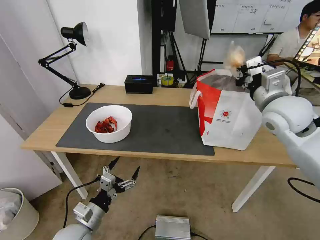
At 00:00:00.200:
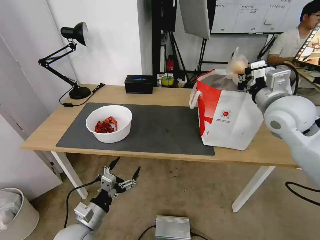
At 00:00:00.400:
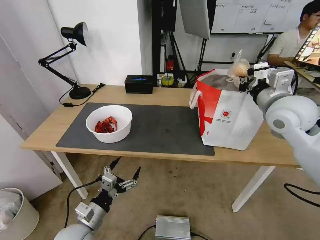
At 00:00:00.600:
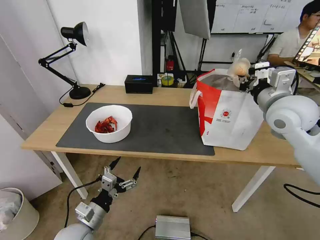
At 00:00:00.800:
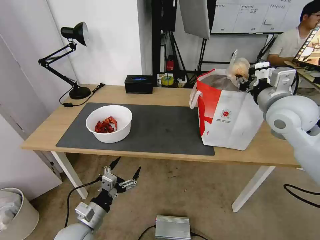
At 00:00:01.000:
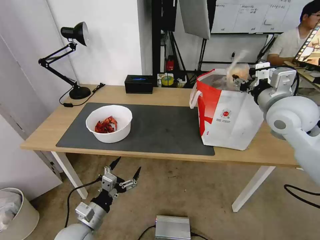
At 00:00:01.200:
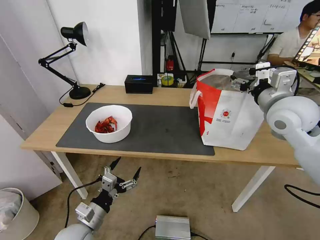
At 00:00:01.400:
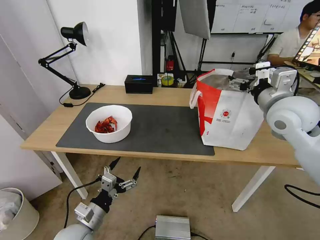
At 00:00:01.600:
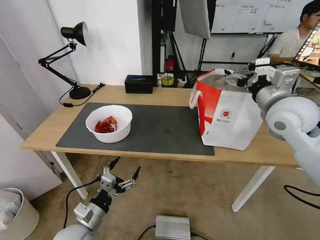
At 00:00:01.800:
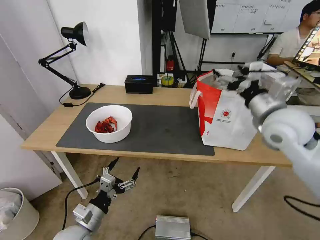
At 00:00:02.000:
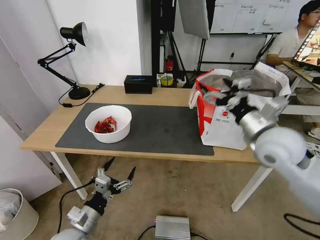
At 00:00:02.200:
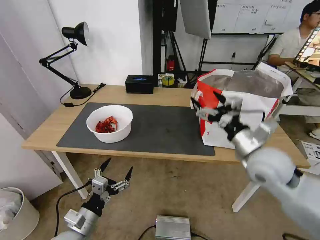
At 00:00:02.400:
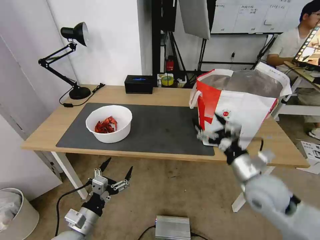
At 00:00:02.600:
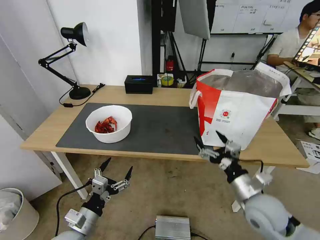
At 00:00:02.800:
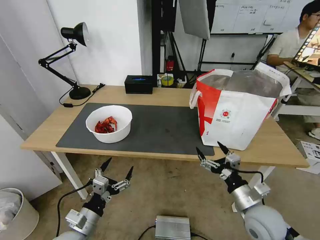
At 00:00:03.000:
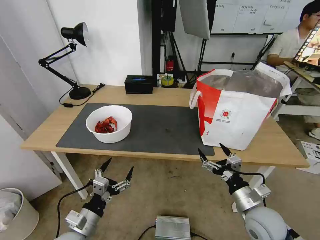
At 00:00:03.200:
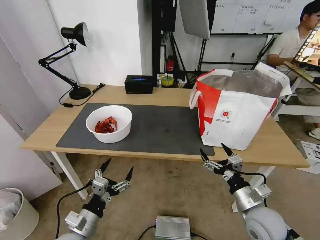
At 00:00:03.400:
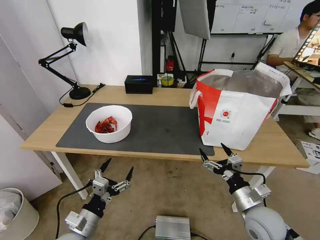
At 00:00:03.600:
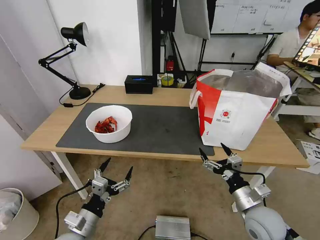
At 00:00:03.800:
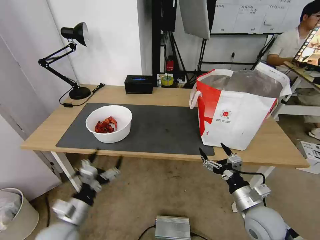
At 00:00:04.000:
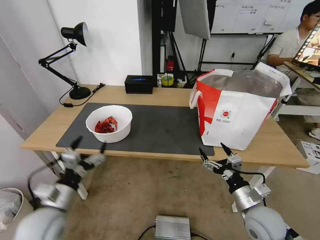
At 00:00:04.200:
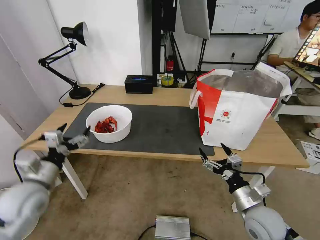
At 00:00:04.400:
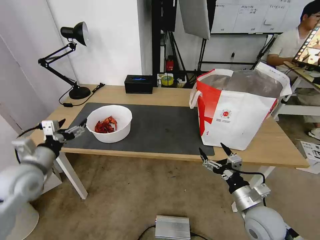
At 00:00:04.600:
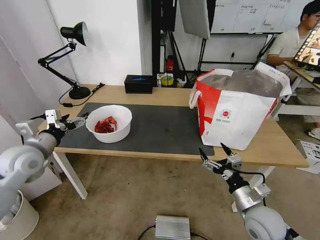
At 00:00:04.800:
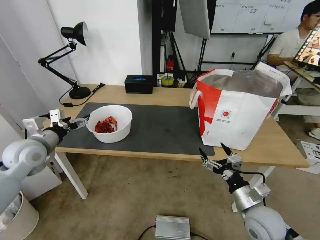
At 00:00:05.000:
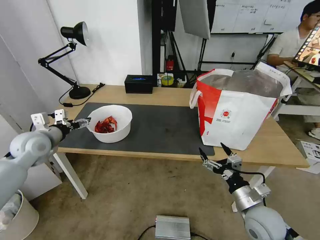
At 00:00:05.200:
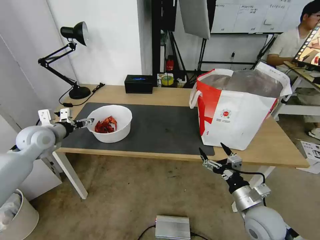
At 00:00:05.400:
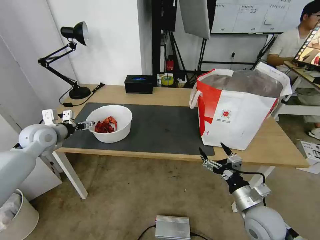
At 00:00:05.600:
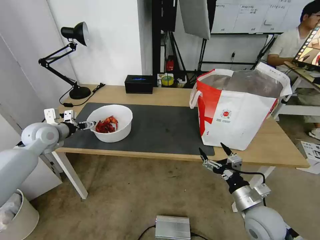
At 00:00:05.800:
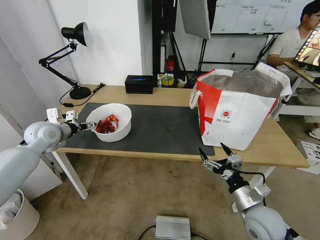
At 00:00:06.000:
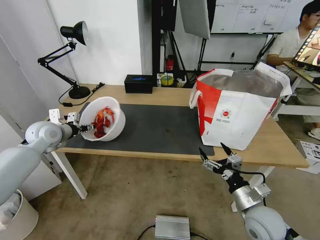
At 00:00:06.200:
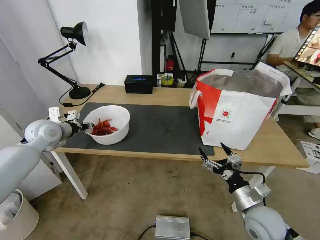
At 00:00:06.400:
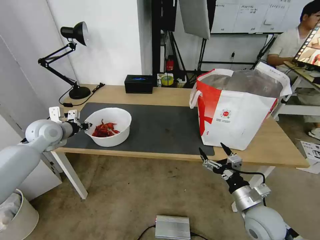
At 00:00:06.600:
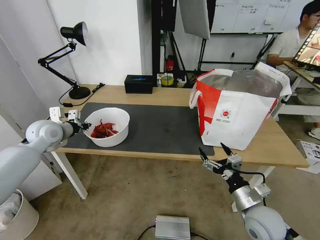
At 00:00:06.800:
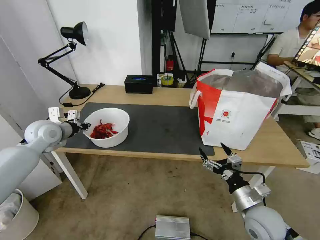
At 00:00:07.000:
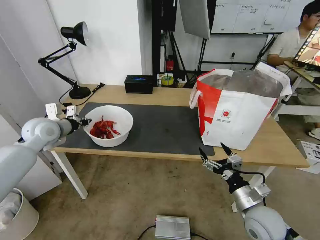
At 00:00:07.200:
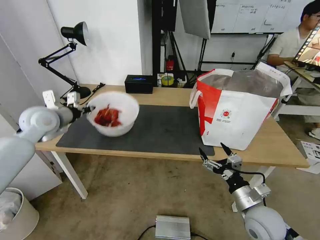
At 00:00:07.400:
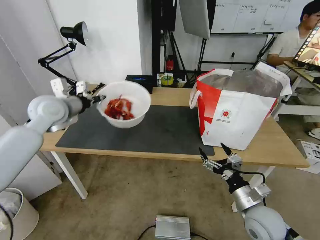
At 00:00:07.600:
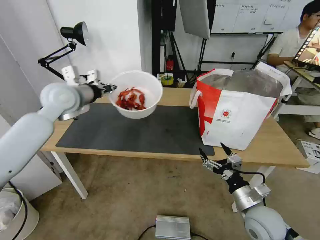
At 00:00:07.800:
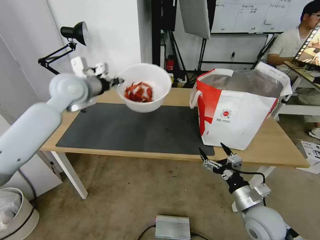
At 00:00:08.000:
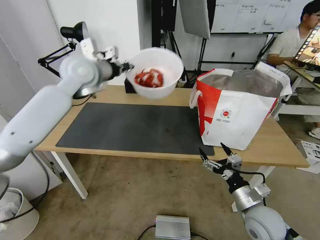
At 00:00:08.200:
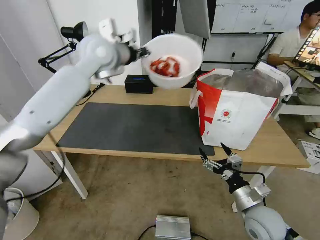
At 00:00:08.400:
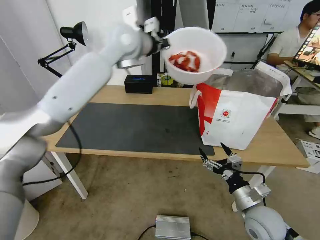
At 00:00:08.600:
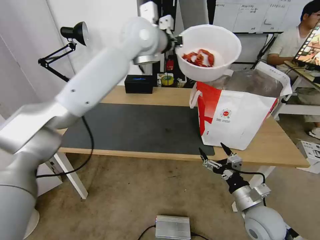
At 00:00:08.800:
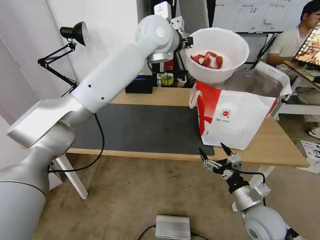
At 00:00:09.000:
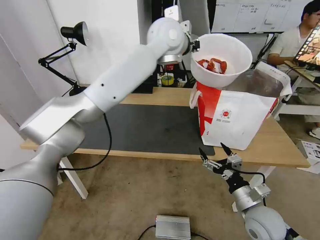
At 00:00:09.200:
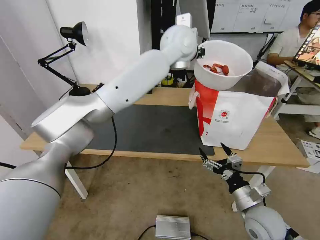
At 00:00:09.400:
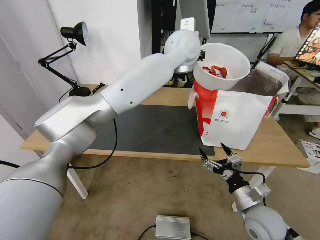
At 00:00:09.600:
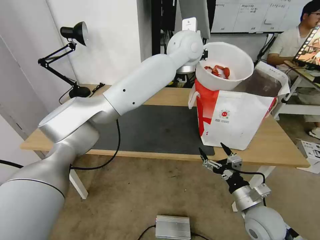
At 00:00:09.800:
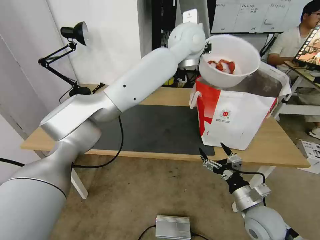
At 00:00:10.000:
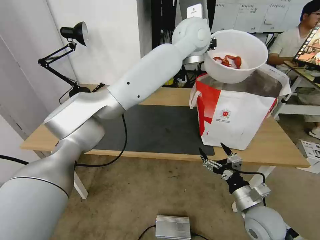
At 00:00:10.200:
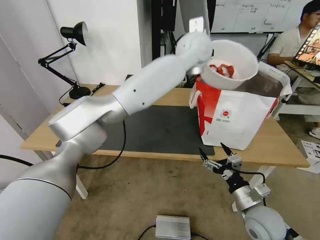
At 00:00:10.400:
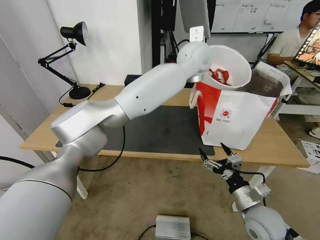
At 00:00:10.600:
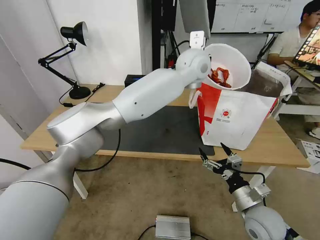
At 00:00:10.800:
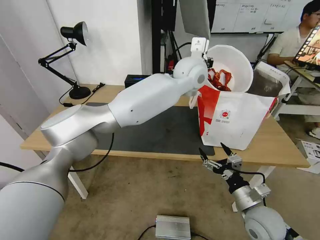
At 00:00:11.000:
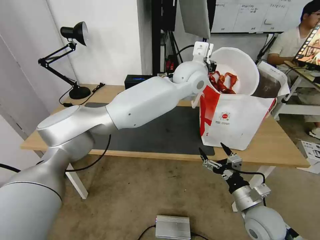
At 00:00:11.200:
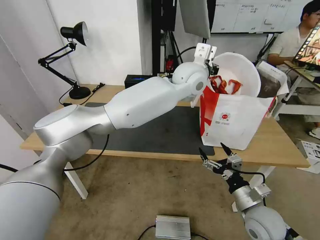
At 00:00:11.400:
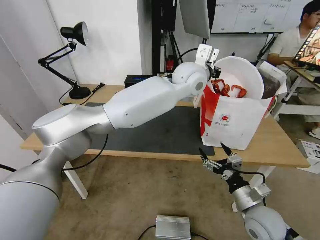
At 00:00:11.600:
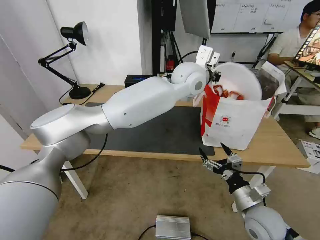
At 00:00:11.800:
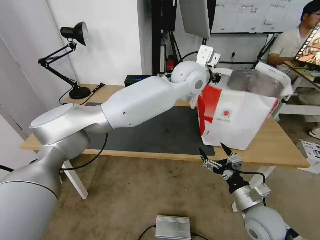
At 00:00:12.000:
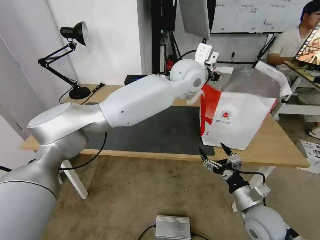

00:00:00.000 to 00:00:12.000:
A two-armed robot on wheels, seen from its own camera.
Task of the whole recording: Pick up the trash from the table and place it into the takeout bag.
00:00:00.000 to 00:00:01.600: The right gripper opens its fingers.
00:00:01.600 to 00:00:03.000: The right gripper heads downward and backward, covering approximately 30 cm.
00:00:03.000 to 00:00:04.400: The left gripper goes approximately 20 cm upward, forward and to the left.
00:00:04.400 to 00:00:06.000: The left gripper heads forward, covering some 15 cm, and closes its fingers.
00:00:06.000 to 00:00:07.600: The left gripper heads upward and to the right, covering approximately 15 cm, and closes its fingers.
00:00:07.600 to 00:00:09.000: The left gripper shifts approximately 35 cm to the right and upward.
00:00:09.000 to 00:00:10.400: The left gripper is displaced to the right and downward by roughly 10 cm.
00:00:10.400 to 00:00:12.000: The left gripper opens its fingers.

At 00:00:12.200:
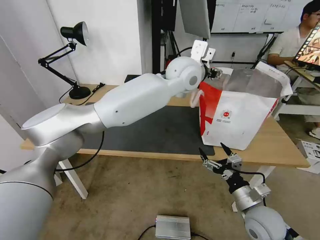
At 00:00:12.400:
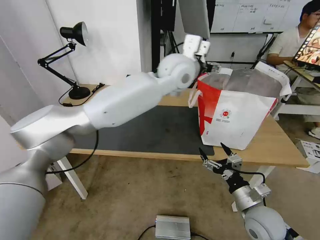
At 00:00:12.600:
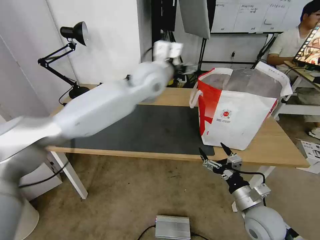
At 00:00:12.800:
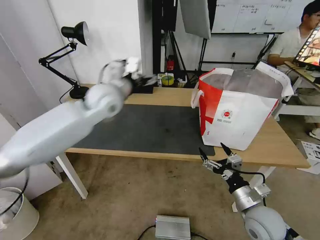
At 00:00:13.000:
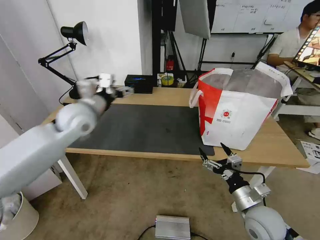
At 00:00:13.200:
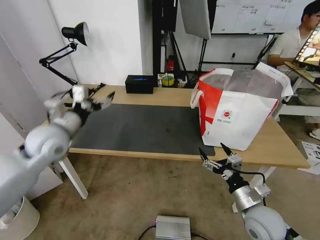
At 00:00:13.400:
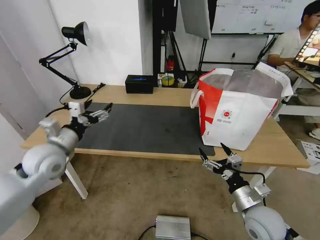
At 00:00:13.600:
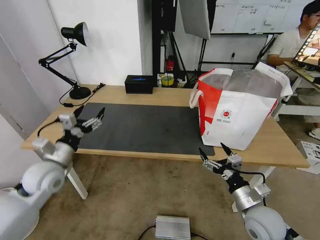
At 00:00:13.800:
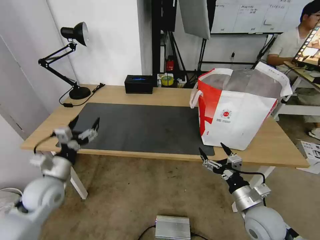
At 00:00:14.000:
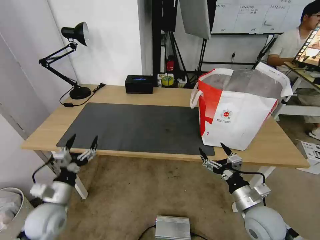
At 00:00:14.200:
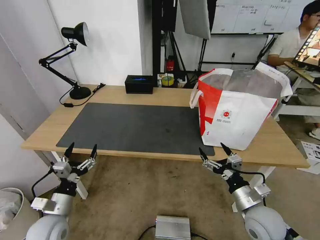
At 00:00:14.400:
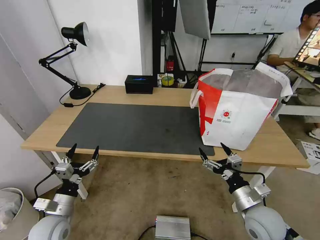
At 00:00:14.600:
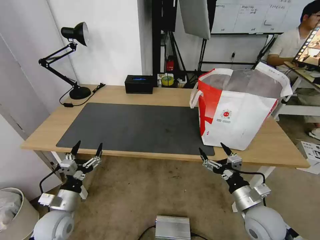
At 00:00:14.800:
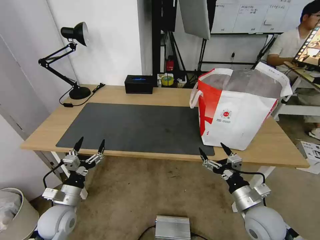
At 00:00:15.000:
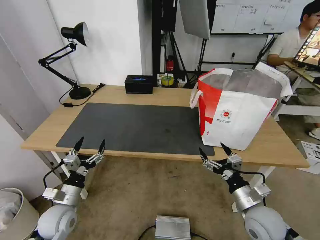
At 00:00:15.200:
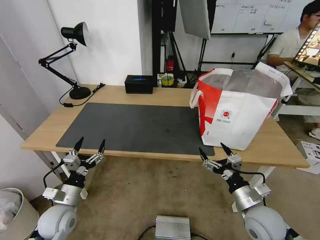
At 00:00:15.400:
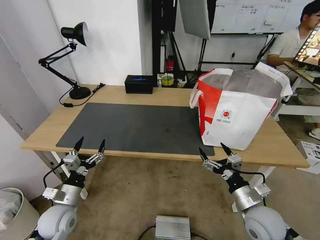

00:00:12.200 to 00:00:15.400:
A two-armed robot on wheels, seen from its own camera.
Task of the whole recording: Pick up the trash from the table and place it into the takeout bag.
00:00:12.200 to 00:00:13.800: The left gripper is displaced to the left, downward and backward by some 50 cm.
00:00:13.800 to 00:00:15.400: The left gripper goes some 5 cm downward.
